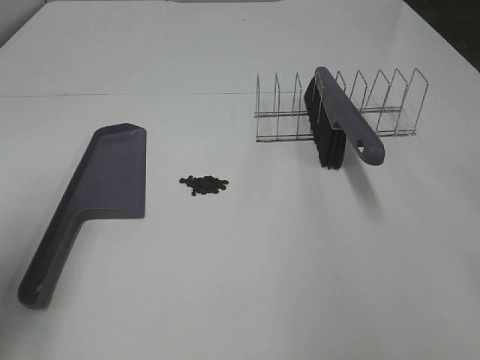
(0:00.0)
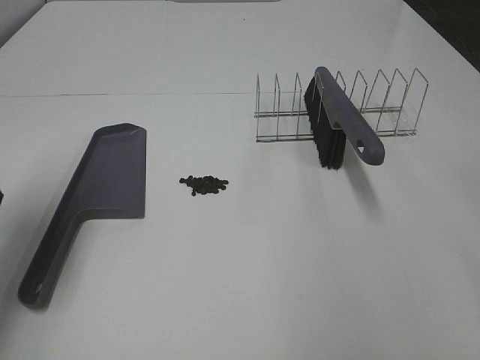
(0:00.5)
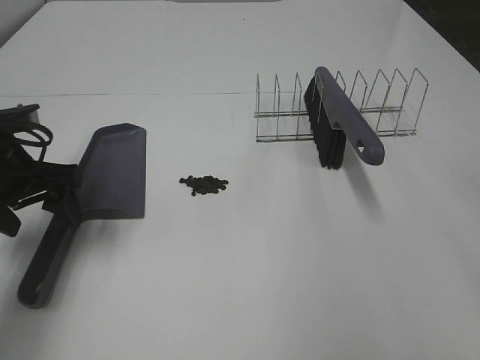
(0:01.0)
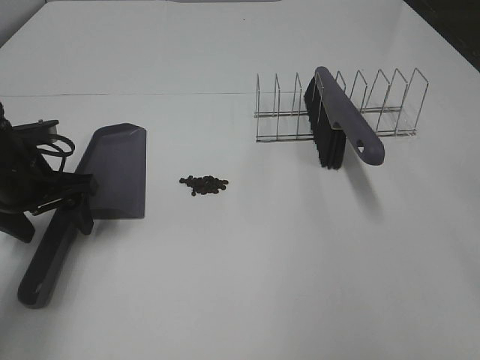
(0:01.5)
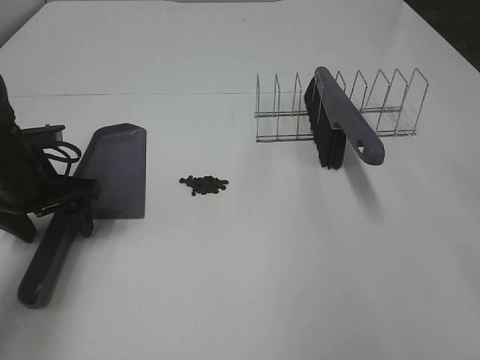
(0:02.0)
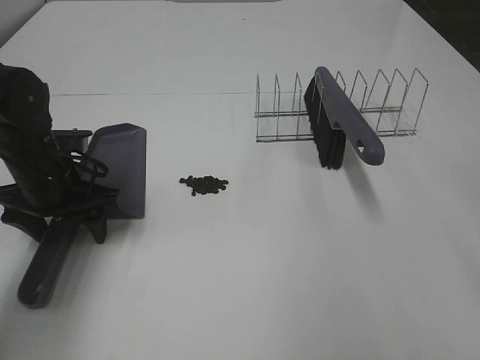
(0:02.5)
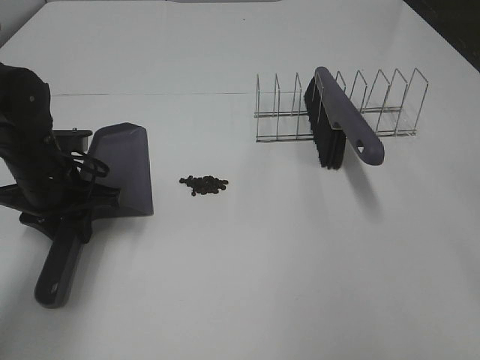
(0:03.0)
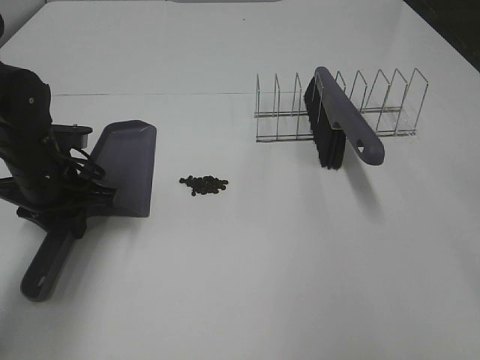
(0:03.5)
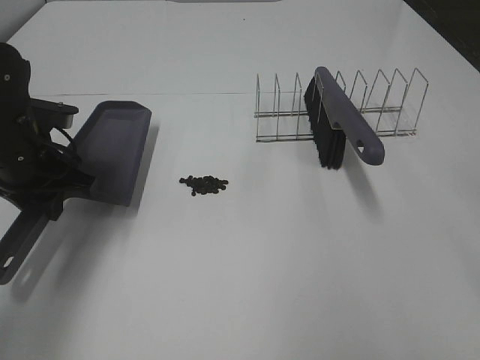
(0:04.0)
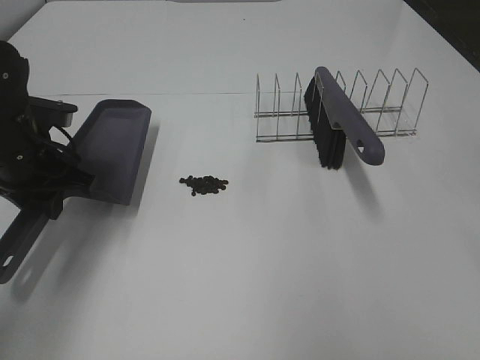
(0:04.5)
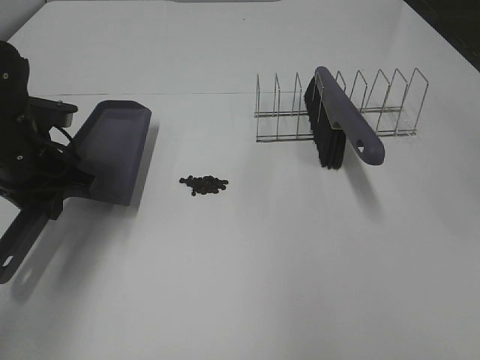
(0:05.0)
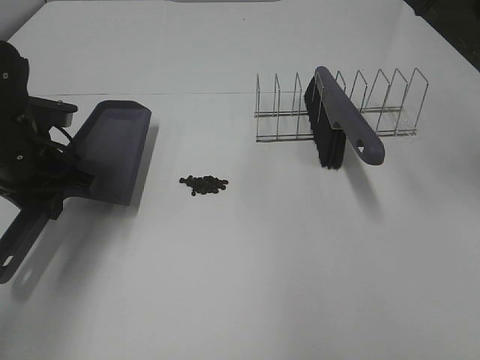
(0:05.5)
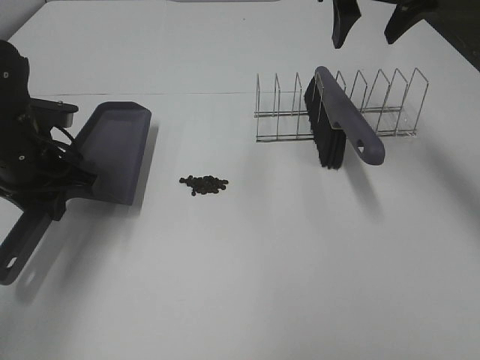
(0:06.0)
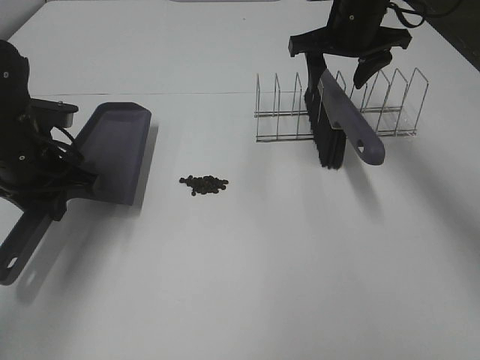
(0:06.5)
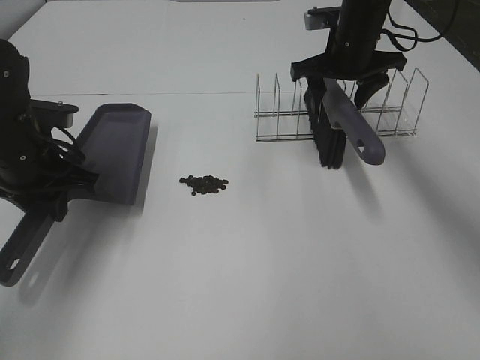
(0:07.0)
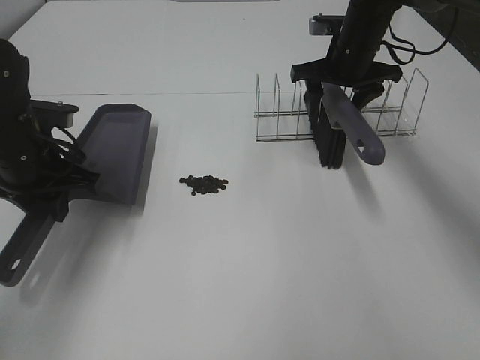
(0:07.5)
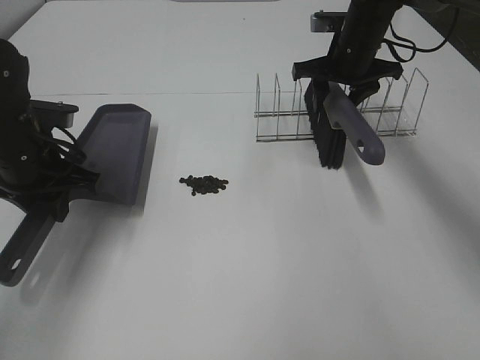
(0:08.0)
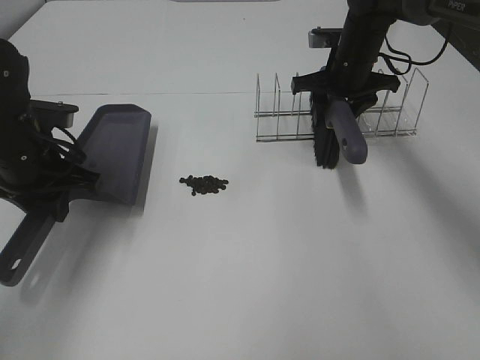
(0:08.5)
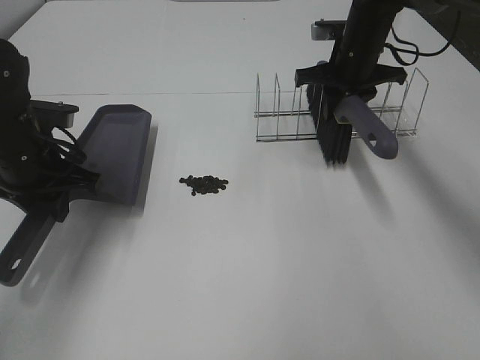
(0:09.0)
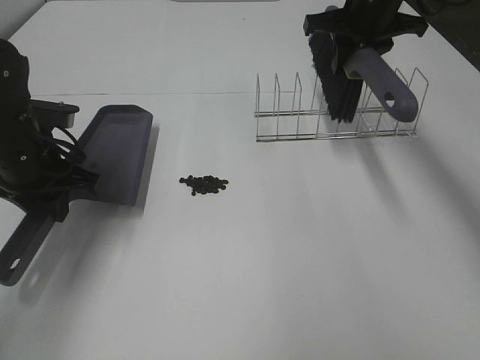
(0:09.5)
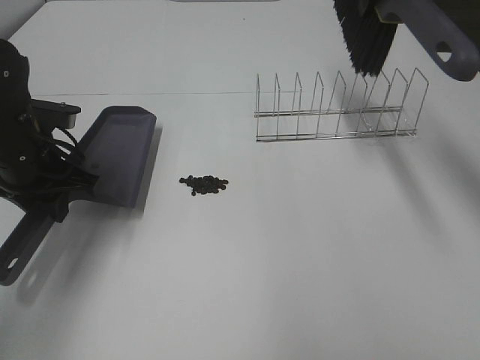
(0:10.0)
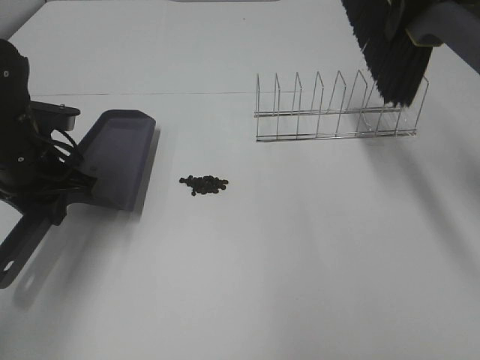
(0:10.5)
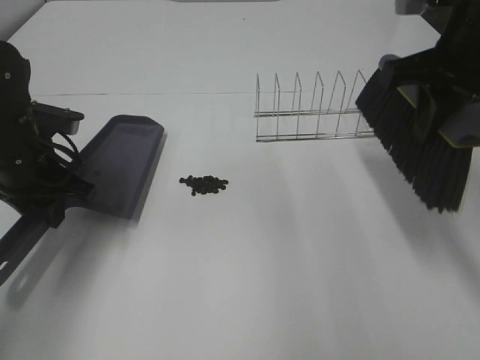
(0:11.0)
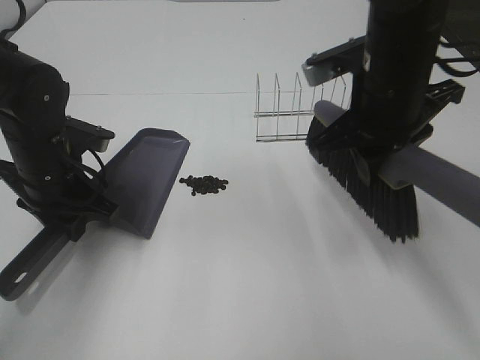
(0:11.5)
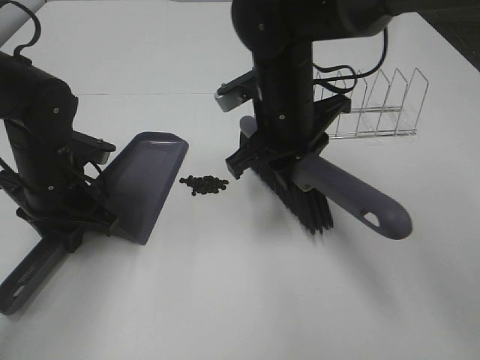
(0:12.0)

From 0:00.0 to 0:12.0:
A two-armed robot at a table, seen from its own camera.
Task of the whole recording: Sweep Coffee Bean.
Step, from 0:00.0 to 0:03.0: Left hand: grab the dustpan.
Step, from 0:04.0 to 0:08.5: Right hand:grab the broom.
From 0:00.0 to 0:02.0: The left gripper moves forward, downward and to the right, roughly 20 cm.
From 0:02.0 to 0:04.0: The left gripper closes up.
From 0:04.0 to 0:06.0: The right gripper heads forward, covering approximately 30 cm.
From 0:06.0 to 0:08.0: The right gripper goes roughly 15 cm downward and forward.
From 0:08.0 to 0:10.0: The right gripper heads upward and backward, covering approximately 20 cm, and closes up.
From 0:10.0 to 0:12.0: The right gripper heads downward, to the left and backward, covering some 25 cm.

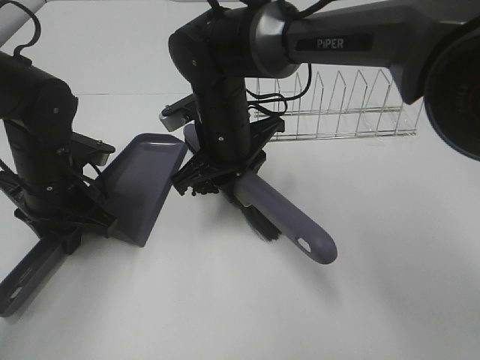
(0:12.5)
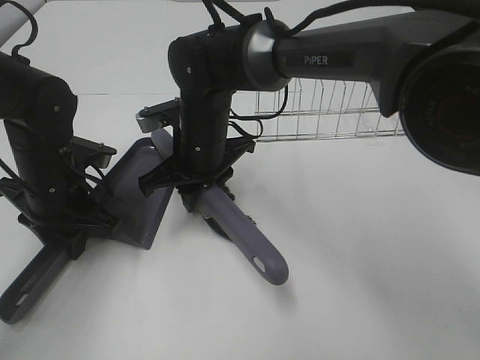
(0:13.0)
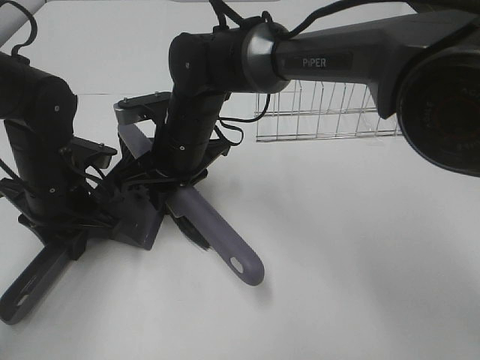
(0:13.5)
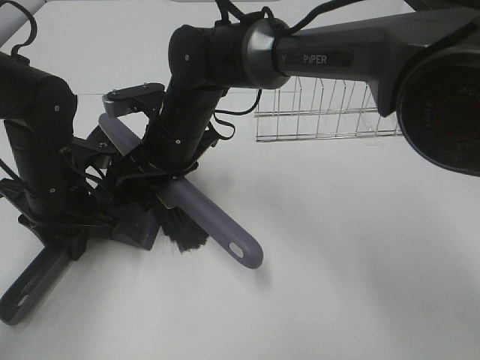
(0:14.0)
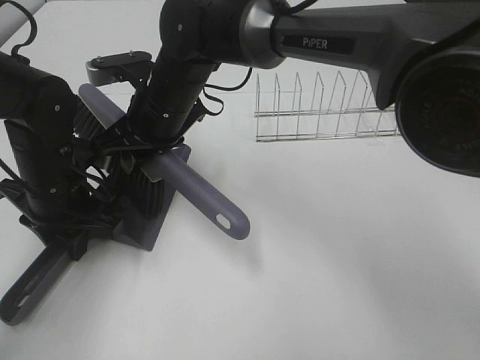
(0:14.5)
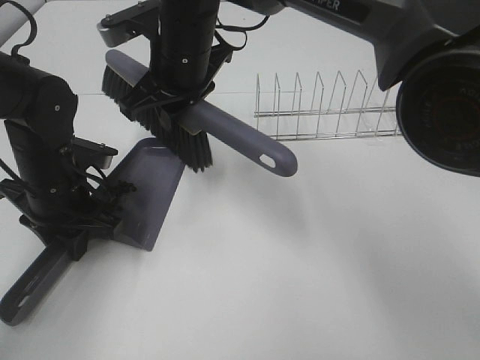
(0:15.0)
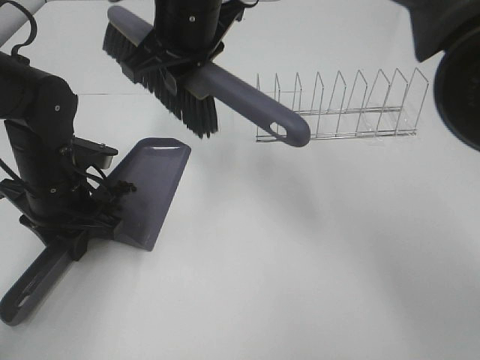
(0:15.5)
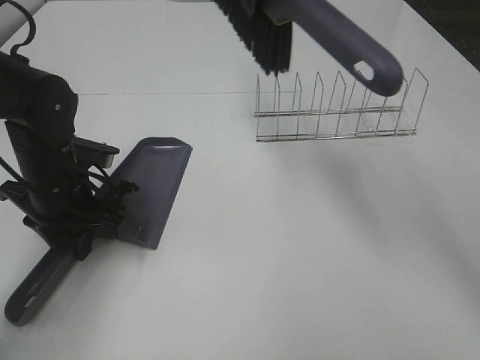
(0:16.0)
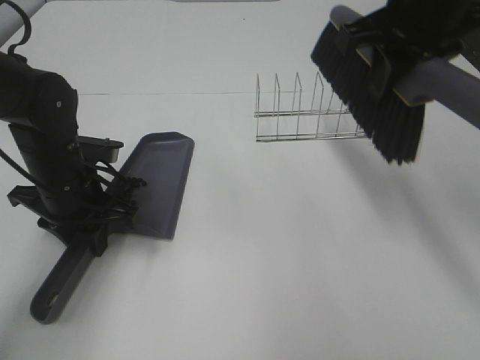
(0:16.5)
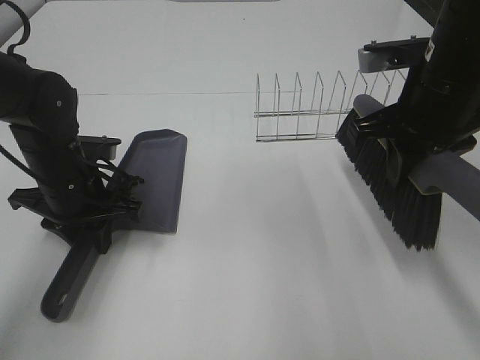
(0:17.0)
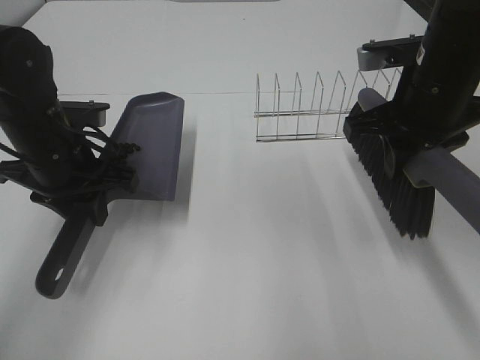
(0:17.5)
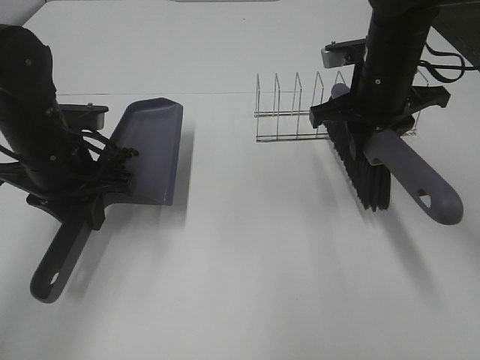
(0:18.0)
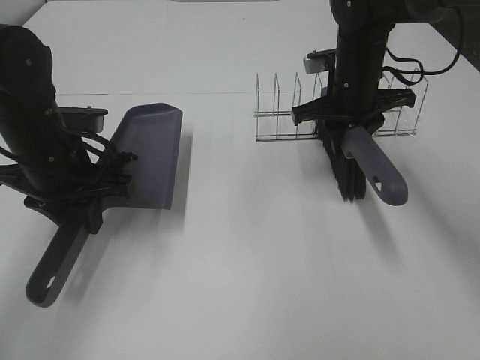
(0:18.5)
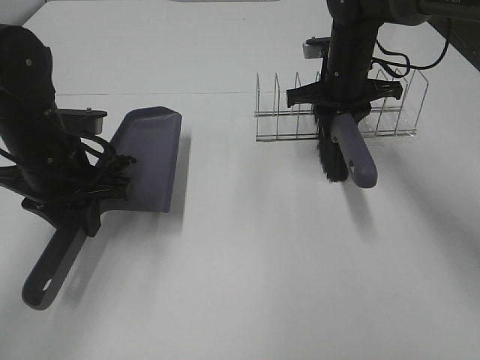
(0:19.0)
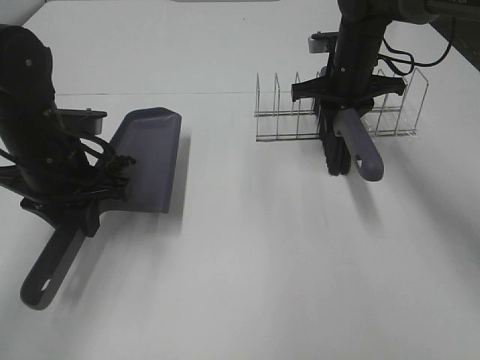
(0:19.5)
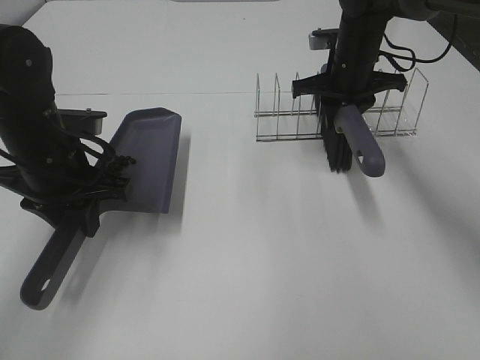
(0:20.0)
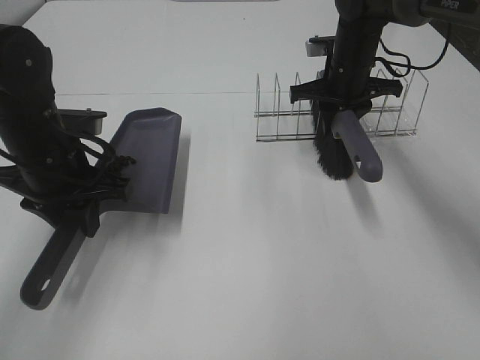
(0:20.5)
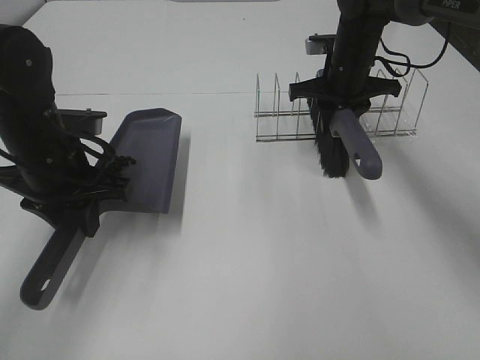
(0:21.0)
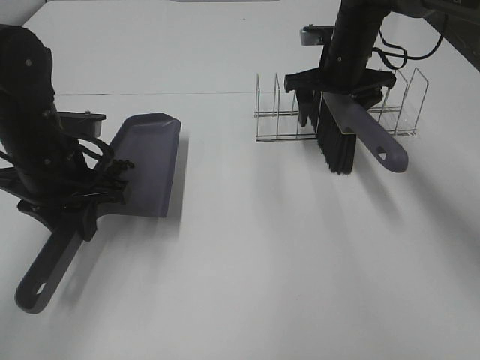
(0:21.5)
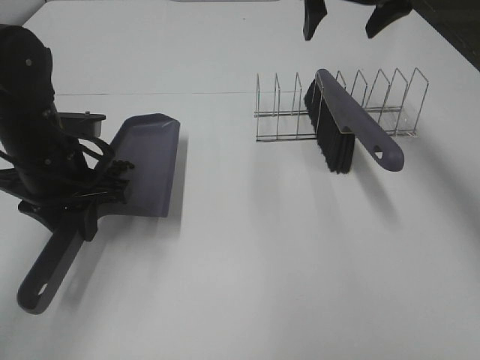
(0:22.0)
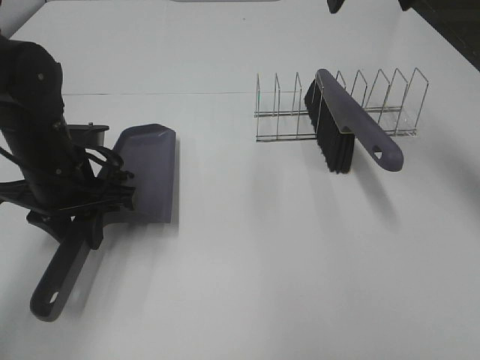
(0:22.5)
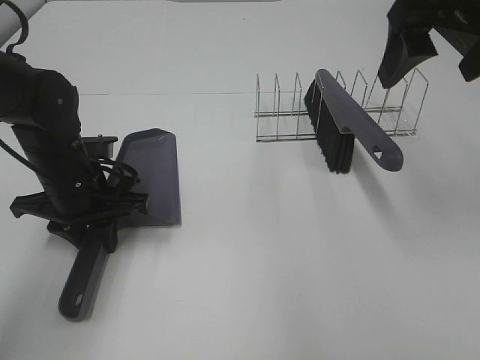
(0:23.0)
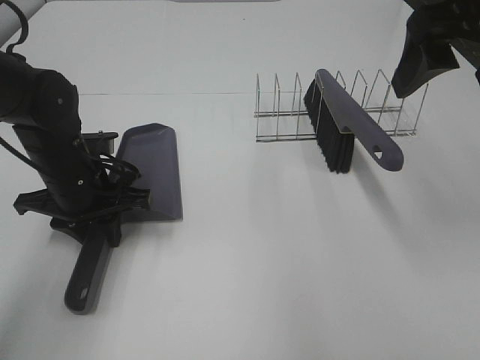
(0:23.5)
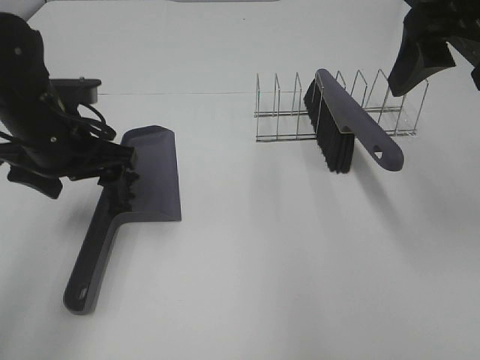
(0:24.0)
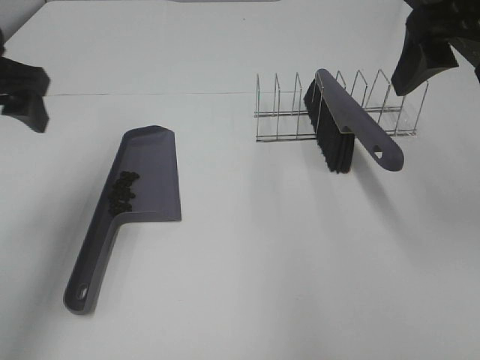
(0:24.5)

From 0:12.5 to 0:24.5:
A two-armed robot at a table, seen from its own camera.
Task of the whole recording: Sweep Coffee Bean.
Step, from 0:12.5 to 0:14.5: Right hand:sweep the coffee beans into the dustpan.
Step, from 0:15.0 to 0:21.5: Right hand:place the broom on the rack.
Step, from 0:22.0 to 0:23.5: Left hand:place the dustpan on the table.
From 0:12.5 to 0:14.5: The right gripper is displaced to the left by approximately 5 cm.
From 0:14.5 to 0:16.5: The right gripper heads to the right and upward, covering roughly 30 cm.
From 0:16.5 to 0:18.5: The right gripper travels downward and forward by roughly 20 cm.
From 0:18.5 to 0:20.5: The right gripper shifts some 5 cm forward.
From 0:20.5 to 0:22.5: The right gripper is displaced upward and backward by approximately 20 cm, and opens.
From 0:22.5 to 0:24.5: The right gripper moves backward, approximately 15 cm. Meanwhile the left gripper moves upward and to the left, about 15 cm, and opens up.

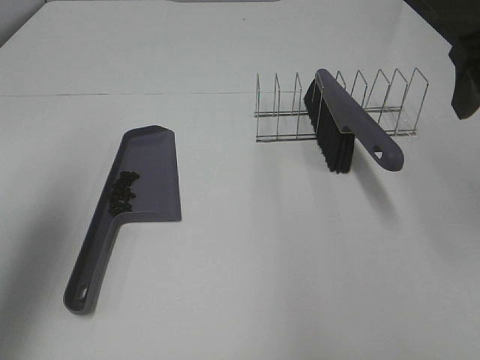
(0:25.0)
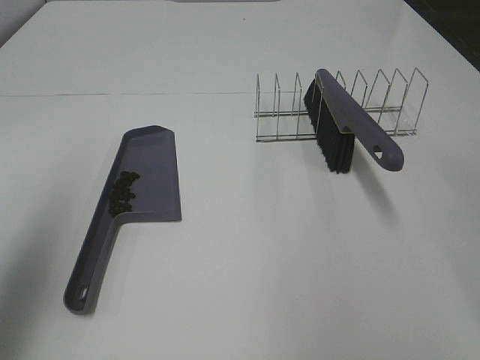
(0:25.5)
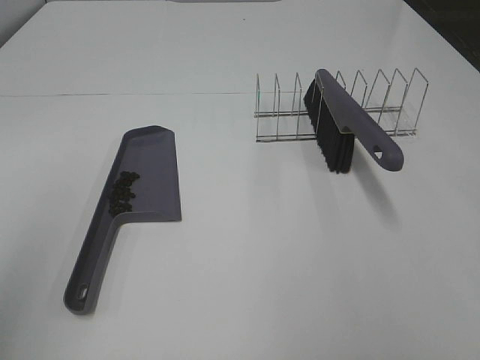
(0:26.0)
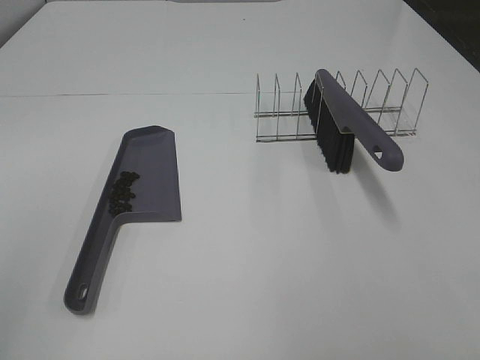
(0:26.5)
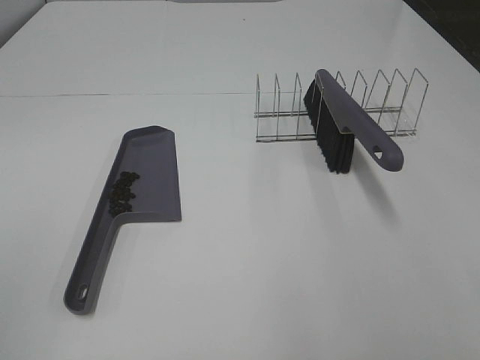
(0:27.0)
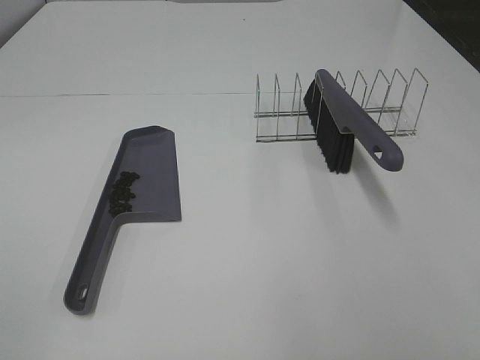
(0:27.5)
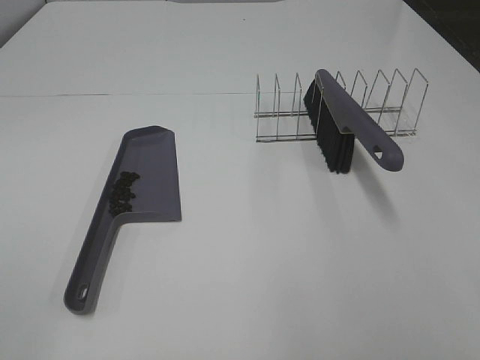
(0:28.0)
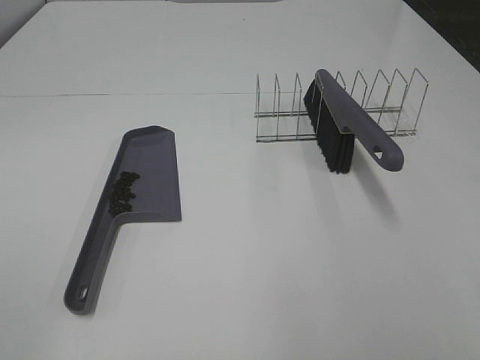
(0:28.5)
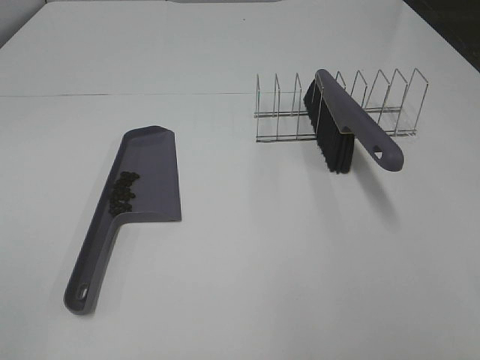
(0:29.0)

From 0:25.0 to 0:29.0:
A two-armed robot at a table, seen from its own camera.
Task of the whole recording: Sweep Coffee Bean.
From 0:25.0 to 0:27.0: Both grippers travel together backward, approximately 25 cm.
